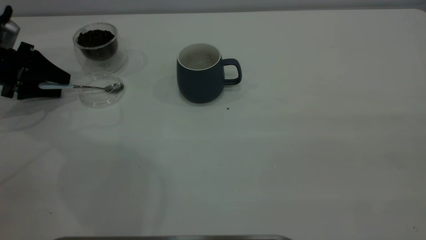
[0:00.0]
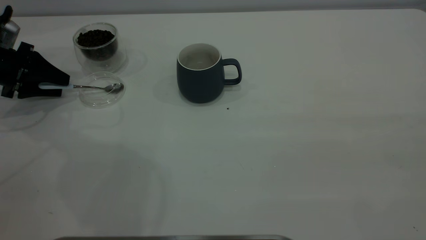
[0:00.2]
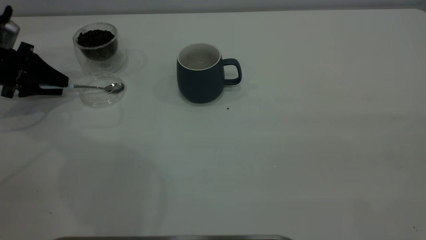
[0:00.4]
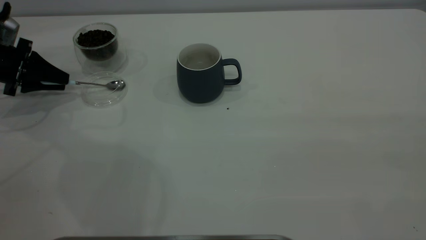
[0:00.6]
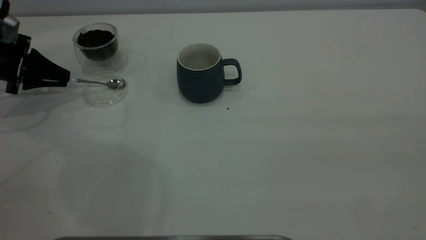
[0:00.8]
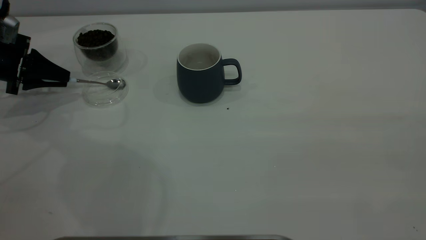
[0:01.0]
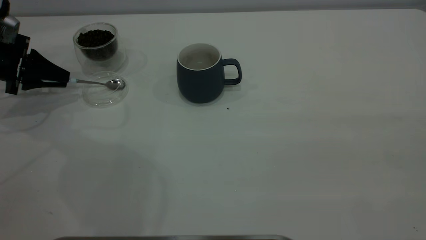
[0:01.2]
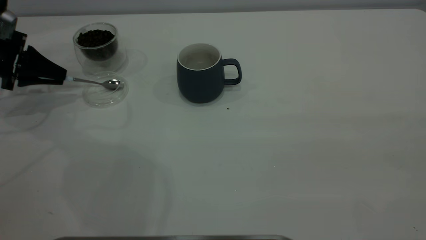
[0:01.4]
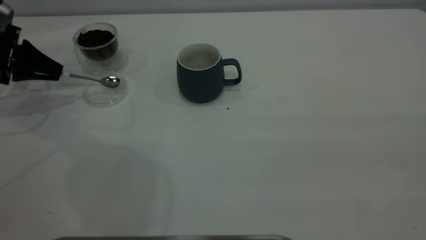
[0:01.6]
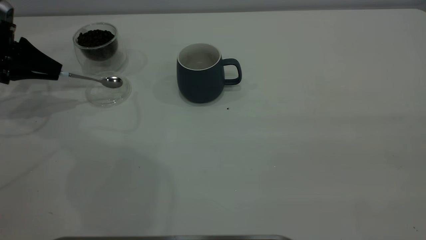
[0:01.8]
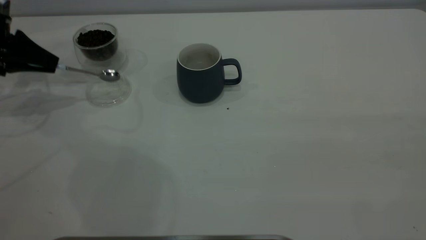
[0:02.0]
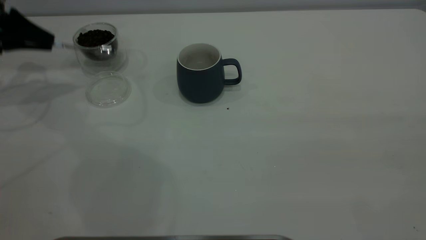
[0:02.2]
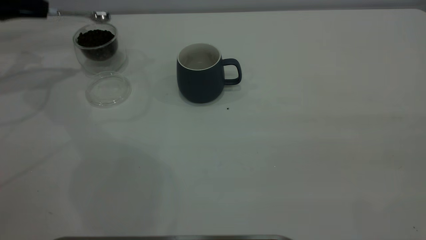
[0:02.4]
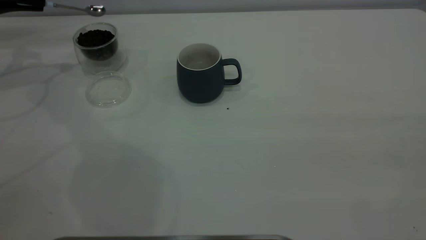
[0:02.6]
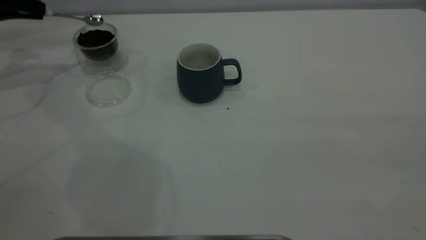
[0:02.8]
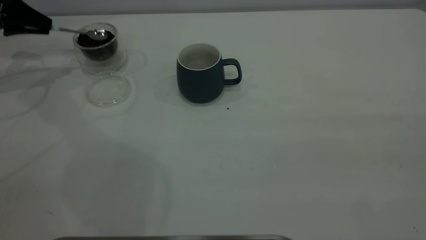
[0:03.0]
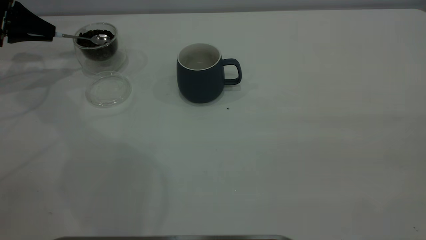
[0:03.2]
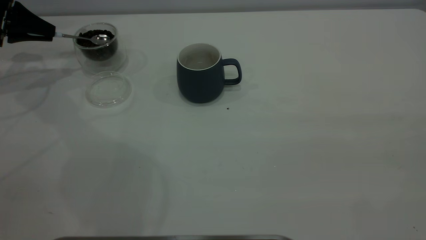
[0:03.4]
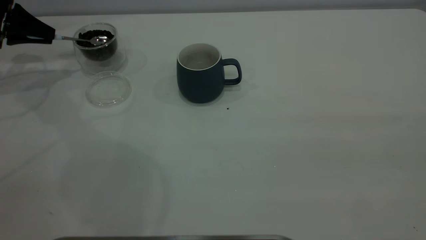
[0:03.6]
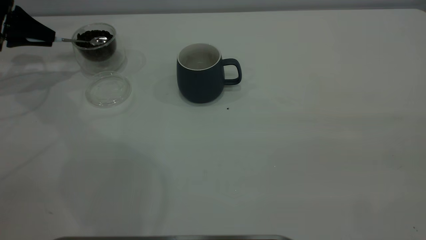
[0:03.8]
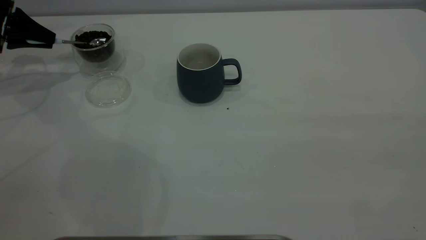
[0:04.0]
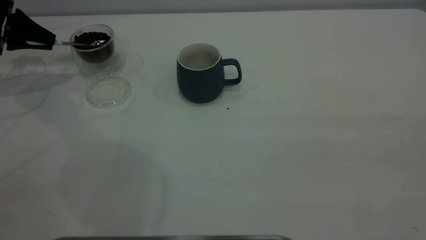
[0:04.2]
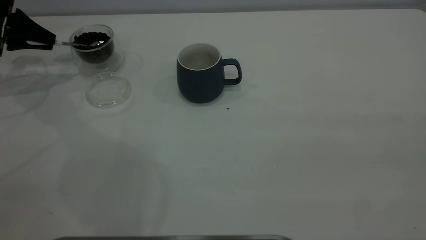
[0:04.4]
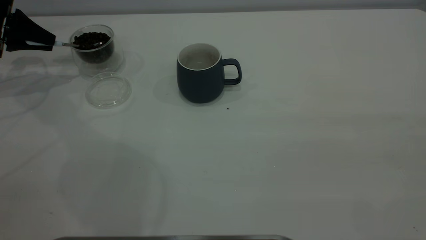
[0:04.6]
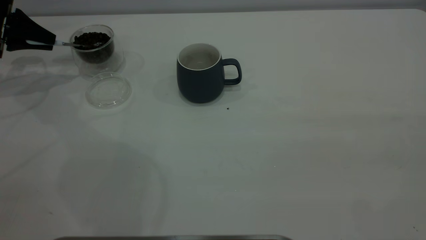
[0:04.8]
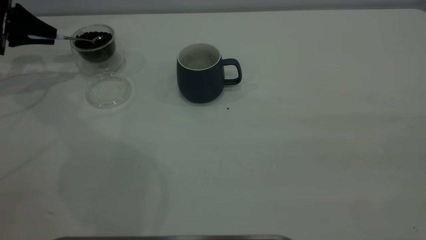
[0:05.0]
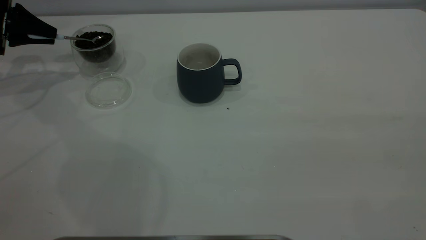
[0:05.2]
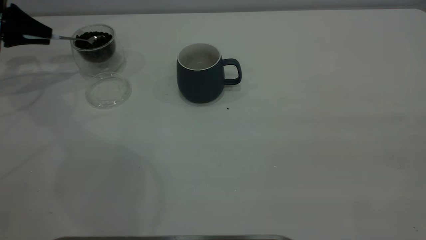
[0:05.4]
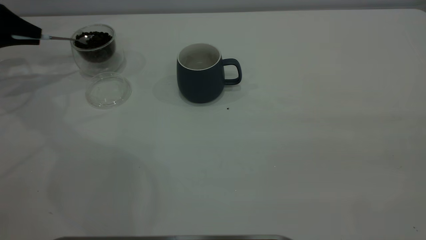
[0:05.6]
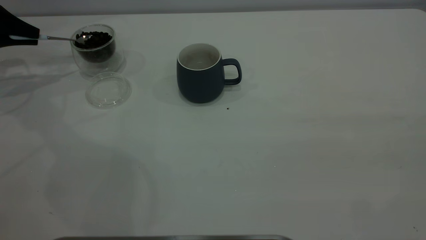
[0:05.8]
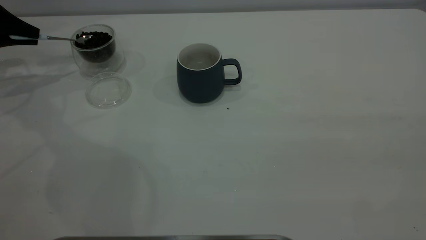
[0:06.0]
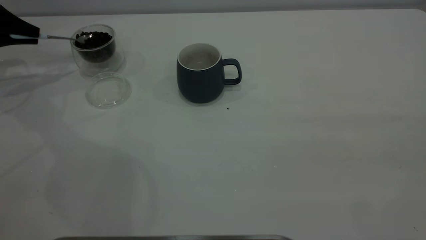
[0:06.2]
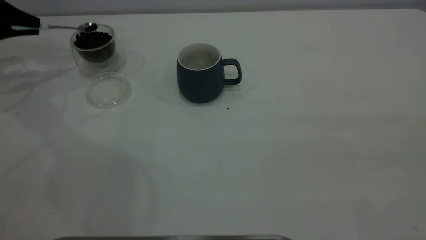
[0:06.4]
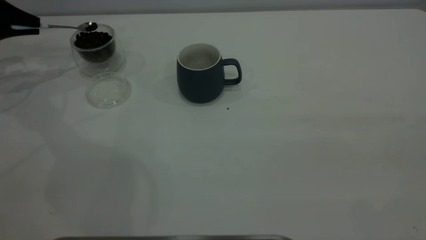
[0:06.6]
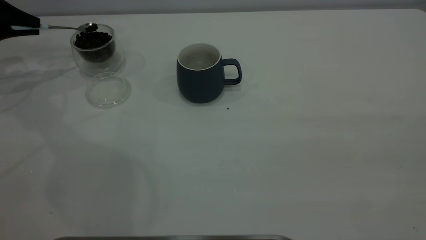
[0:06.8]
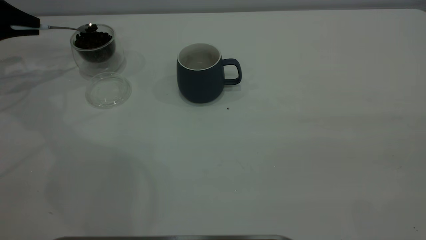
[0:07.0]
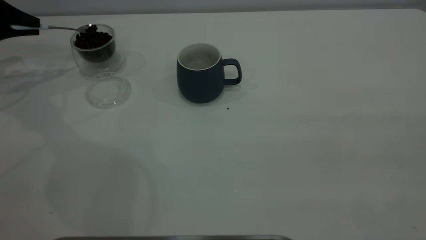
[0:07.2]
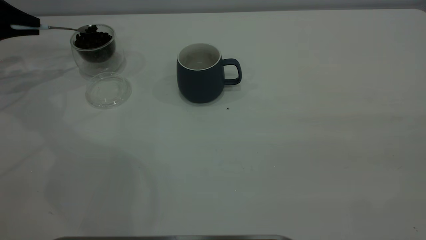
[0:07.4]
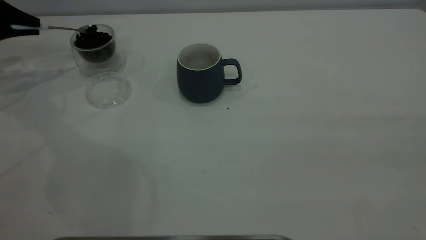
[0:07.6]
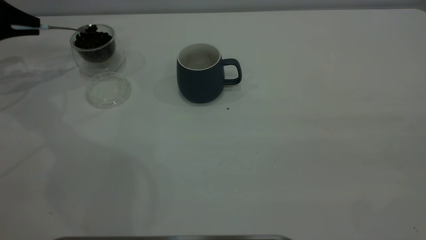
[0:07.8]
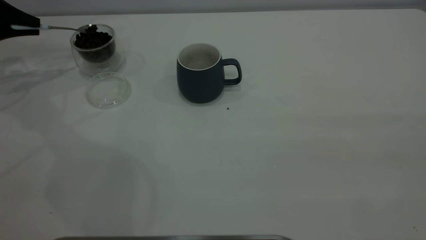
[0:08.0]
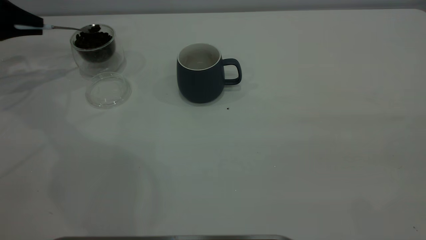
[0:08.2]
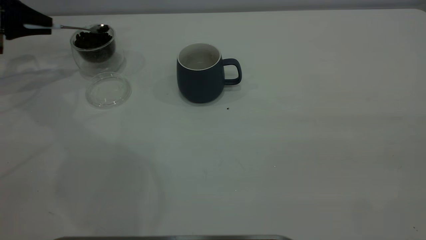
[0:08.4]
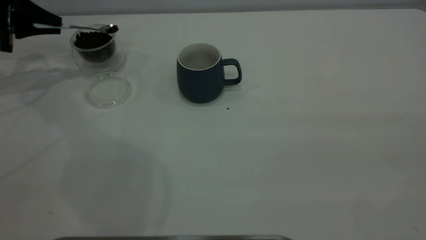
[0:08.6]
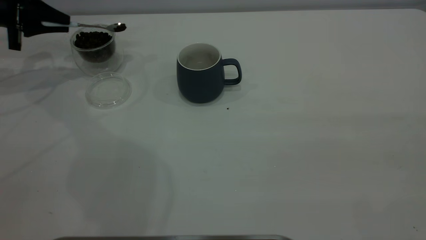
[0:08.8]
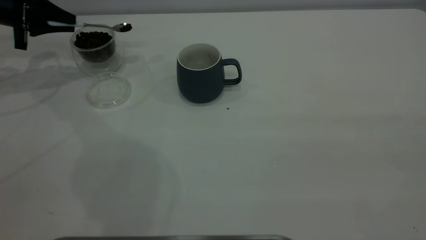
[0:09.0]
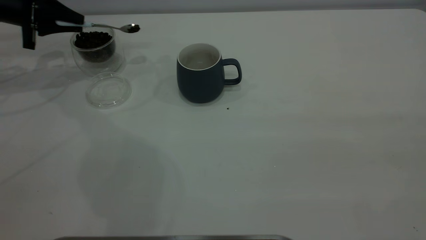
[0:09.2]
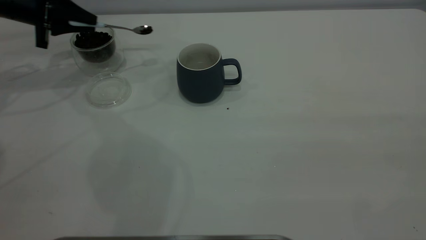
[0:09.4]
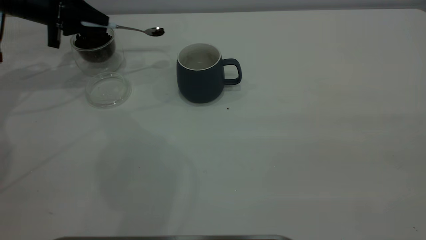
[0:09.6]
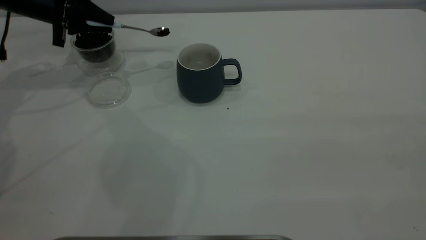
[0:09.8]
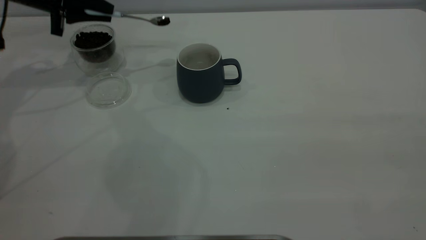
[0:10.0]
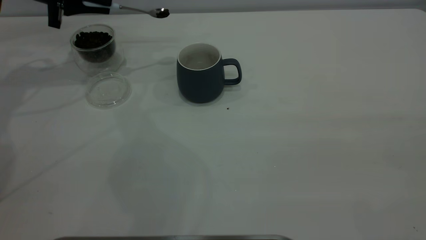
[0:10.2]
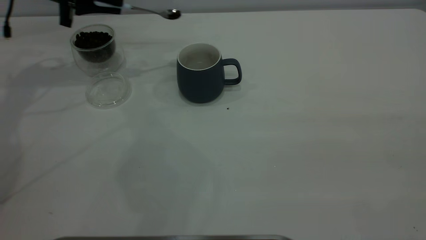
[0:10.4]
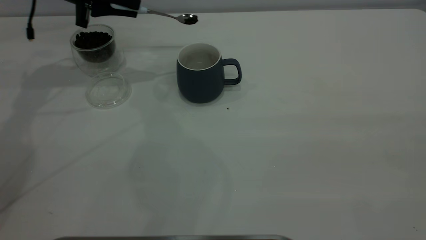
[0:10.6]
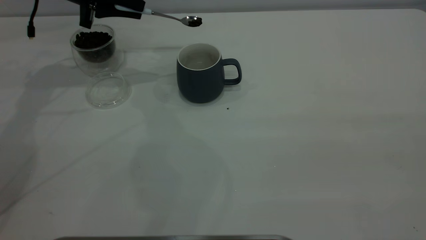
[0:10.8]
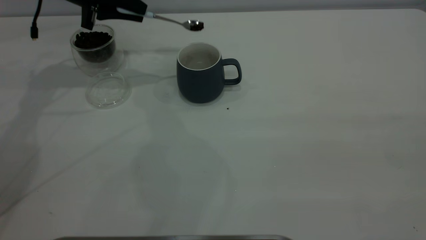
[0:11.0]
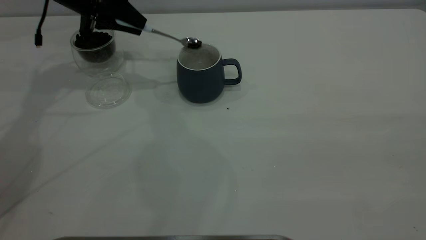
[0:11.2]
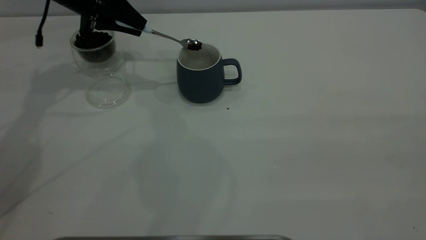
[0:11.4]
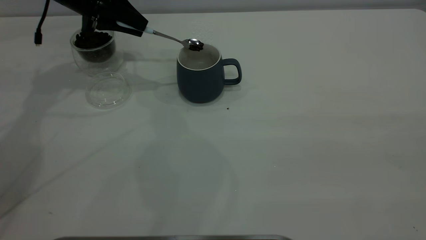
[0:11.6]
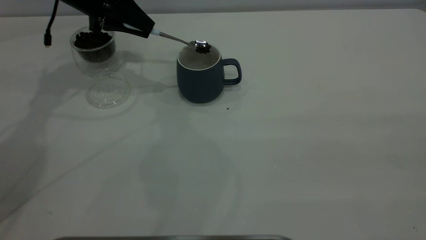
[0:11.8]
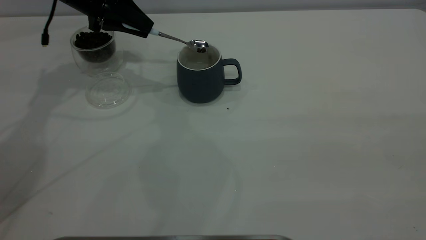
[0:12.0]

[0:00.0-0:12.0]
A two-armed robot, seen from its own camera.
Task of the whole recording: the right gripper place the grey cup in the center of the table, the left gripper take the blue spoon from the cup lid and scoop out the coffee beans from the coffee cup and put them into the grey cup, the left gripper put the spoon back into the cup lid.
Step, 0:00.0 to 0:02.0: Pick up the spoon.
0:00.0 to 0:01.6: The left gripper closes up.
0:01.6 to 0:03.0: The left gripper heads forward, covering roughly 5 cm.
0:03.0 to 0:06.0: The grippers make only small movements.
0:06.0 to 0:07.6: The grippers move only a little.
0:07.6 to 0:09.0: The left gripper is displaced to the right by about 5 cm.
0:09.0 to 0:10.4: The left gripper shifts approximately 10 cm to the right.
0:10.4 to 0:12.0: The left gripper changes place by roughly 5 cm.

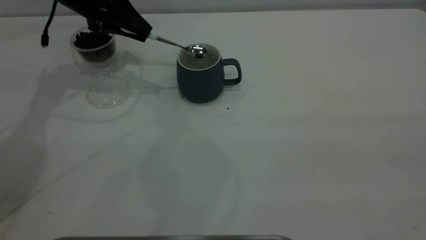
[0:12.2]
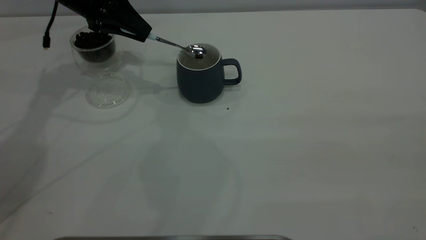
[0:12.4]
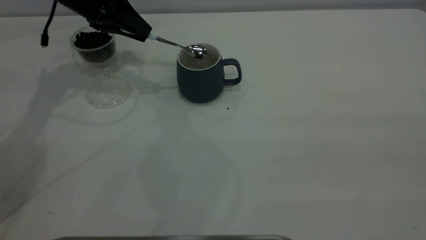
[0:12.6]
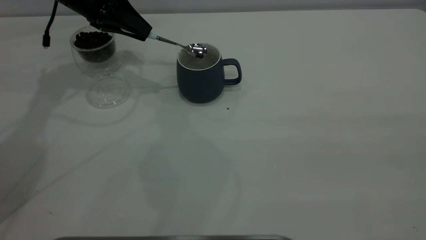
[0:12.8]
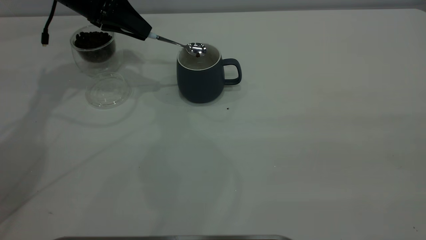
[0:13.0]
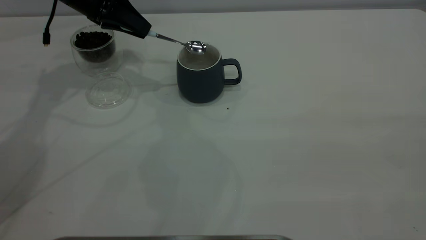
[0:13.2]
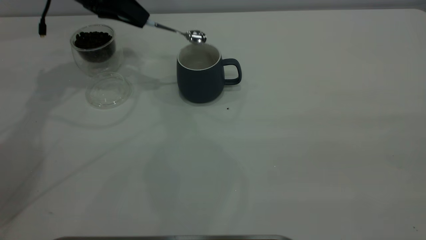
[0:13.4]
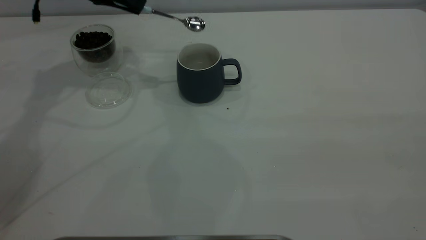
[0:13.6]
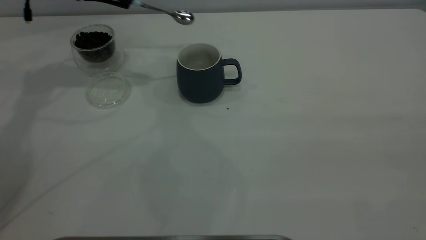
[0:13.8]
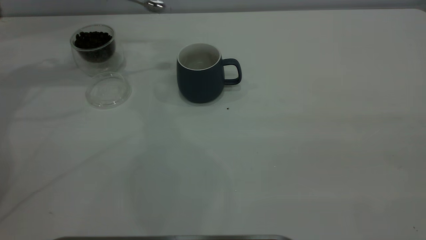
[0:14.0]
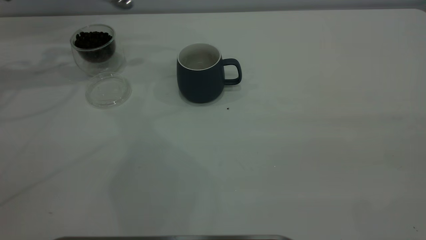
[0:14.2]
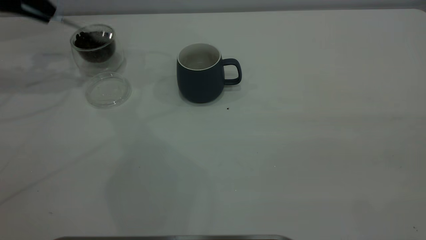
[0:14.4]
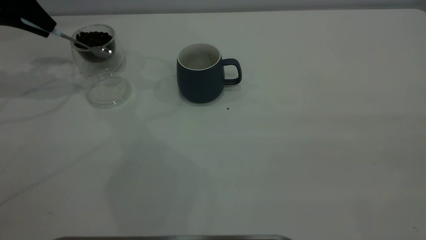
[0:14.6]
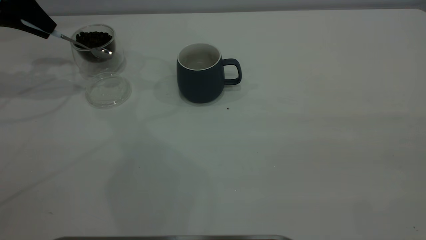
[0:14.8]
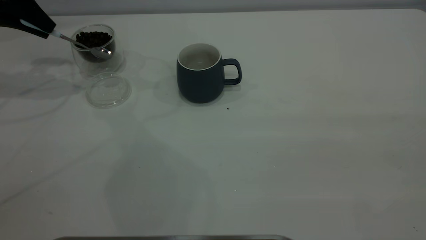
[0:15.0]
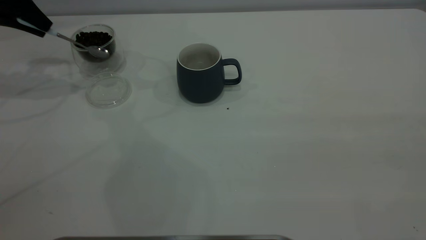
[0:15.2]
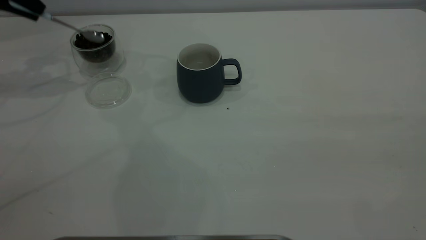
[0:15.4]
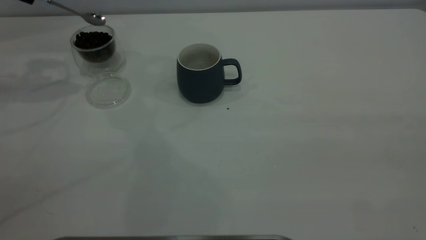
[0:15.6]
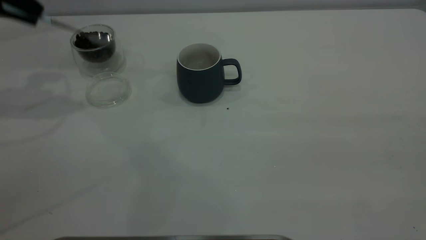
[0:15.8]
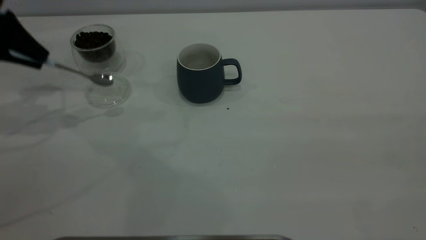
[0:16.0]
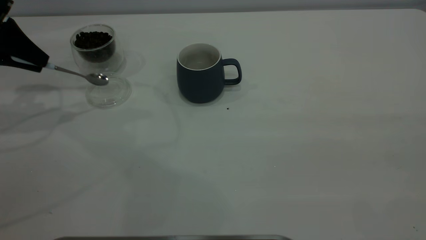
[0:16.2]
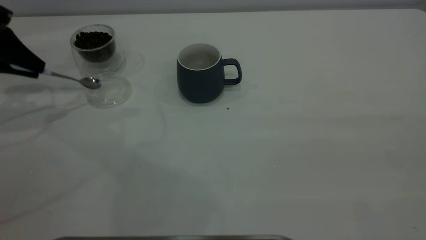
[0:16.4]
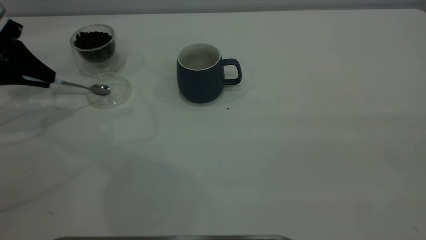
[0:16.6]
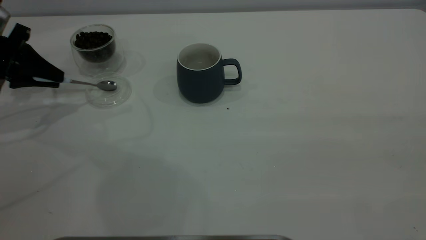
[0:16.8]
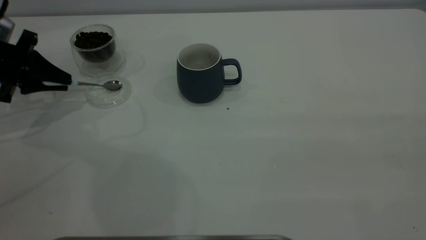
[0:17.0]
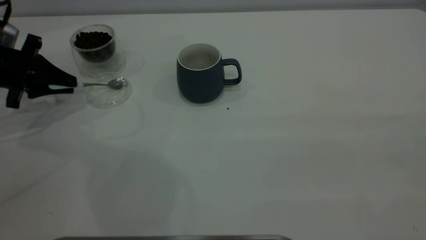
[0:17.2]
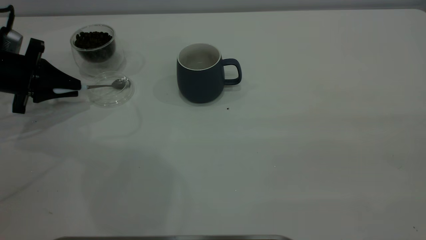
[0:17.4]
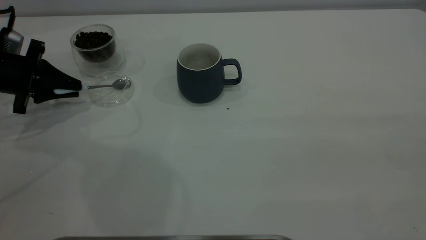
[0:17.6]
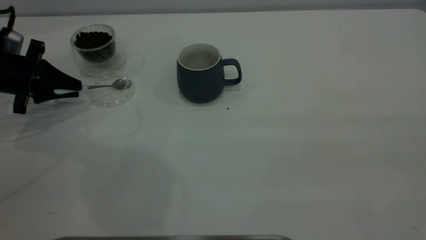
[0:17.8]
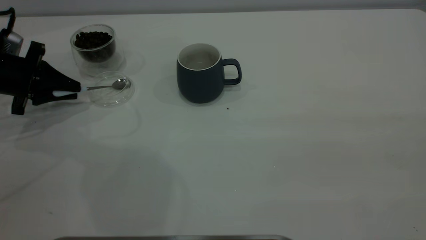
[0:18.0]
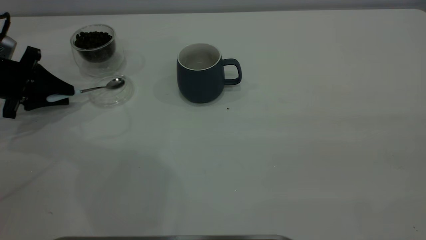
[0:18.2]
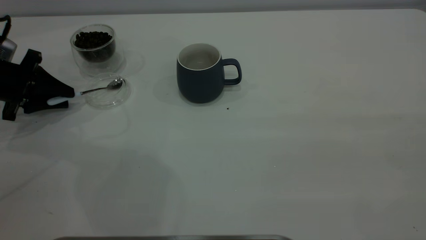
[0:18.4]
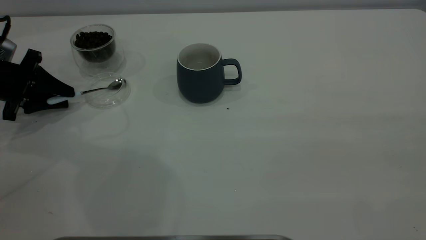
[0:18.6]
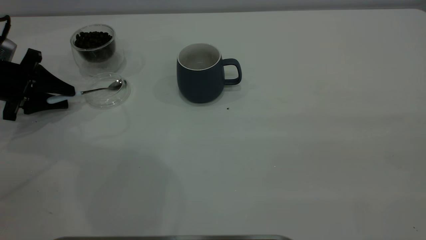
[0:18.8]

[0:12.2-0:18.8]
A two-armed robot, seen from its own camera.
Task of the whole recording: the right gripper place the grey cup in the center of the table, the left gripper take the blue spoon from the cup lid and scoop out the coffee beans from the coffee cup and put them into the grey cup, the left gripper put the spoon back into the cup lid.
0:12.2 to 0:13.8: The left gripper travels upward by approximately 5 cm.
0:13.8 to 0:15.4: The left gripper moves to the left, about 10 cm.
0:15.4 to 0:17.2: The left gripper is displaced downward and backward by some 20 cm.
0:17.2 to 0:18.8: The left gripper opens up.
